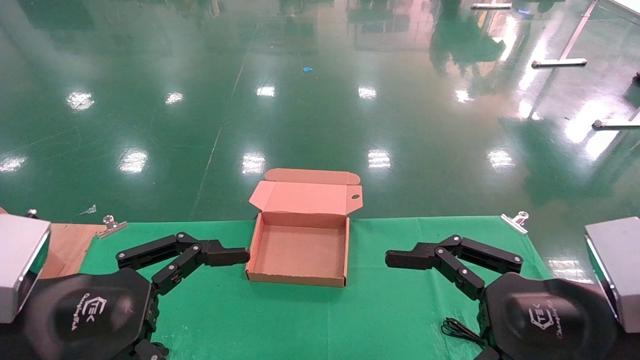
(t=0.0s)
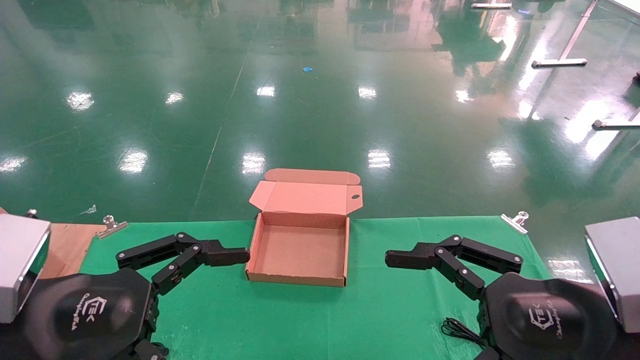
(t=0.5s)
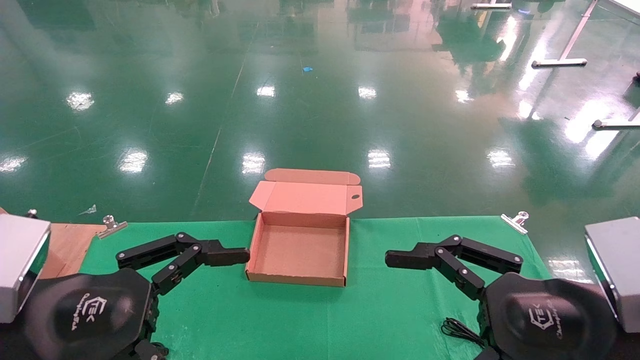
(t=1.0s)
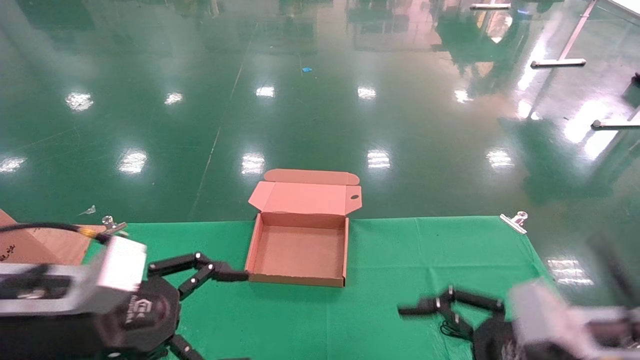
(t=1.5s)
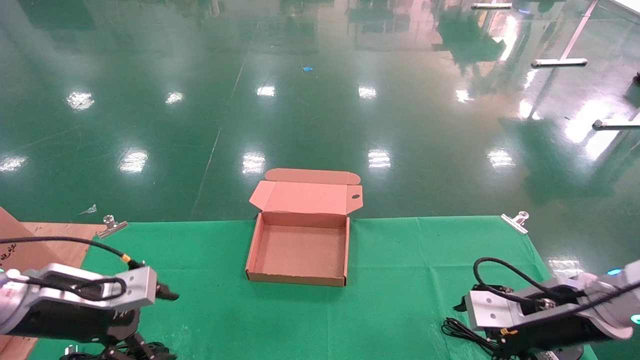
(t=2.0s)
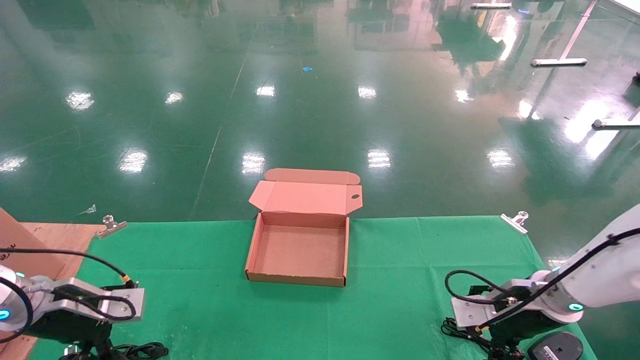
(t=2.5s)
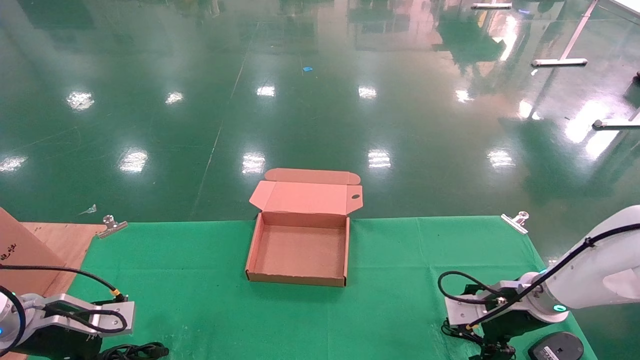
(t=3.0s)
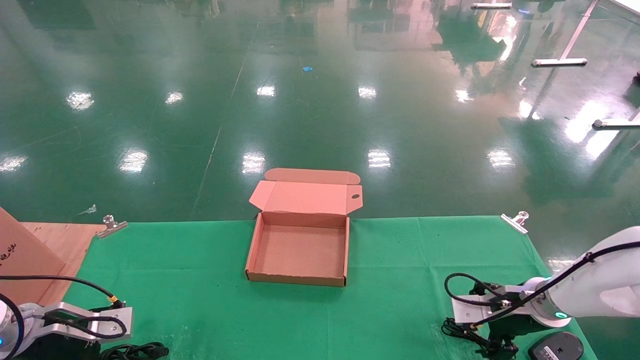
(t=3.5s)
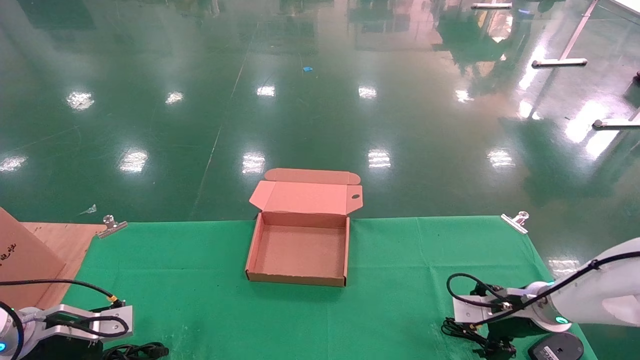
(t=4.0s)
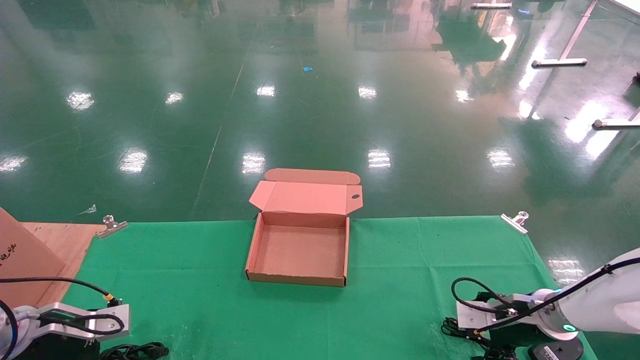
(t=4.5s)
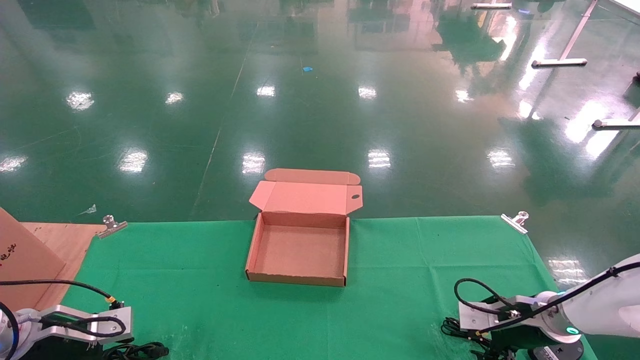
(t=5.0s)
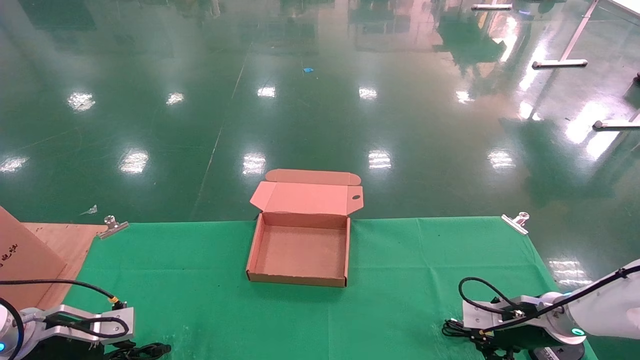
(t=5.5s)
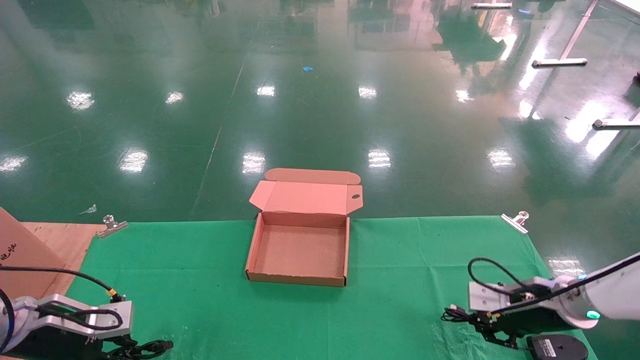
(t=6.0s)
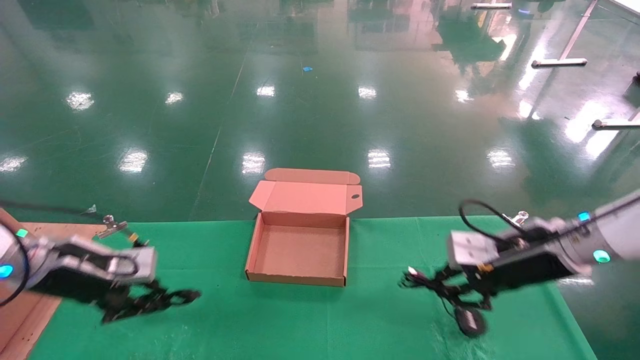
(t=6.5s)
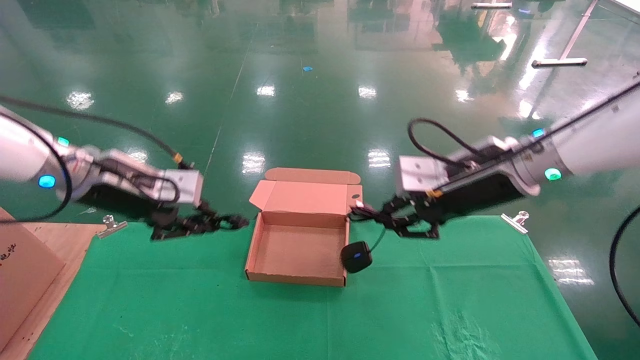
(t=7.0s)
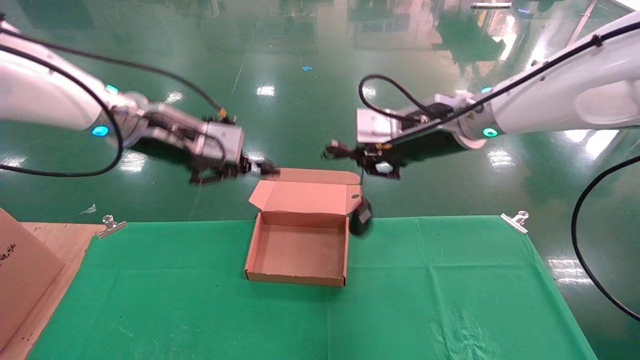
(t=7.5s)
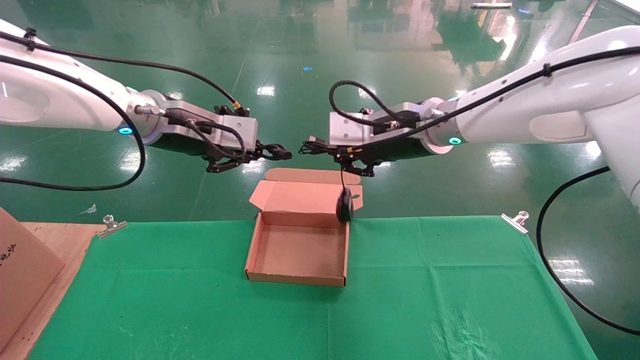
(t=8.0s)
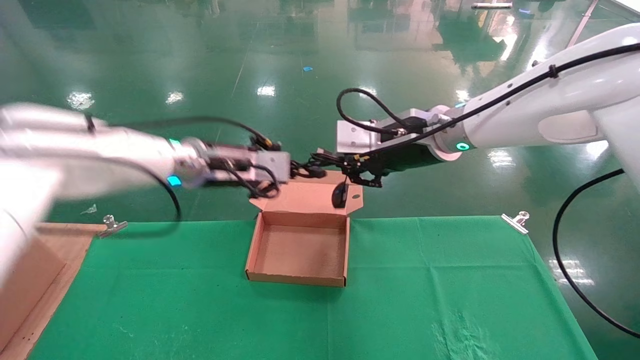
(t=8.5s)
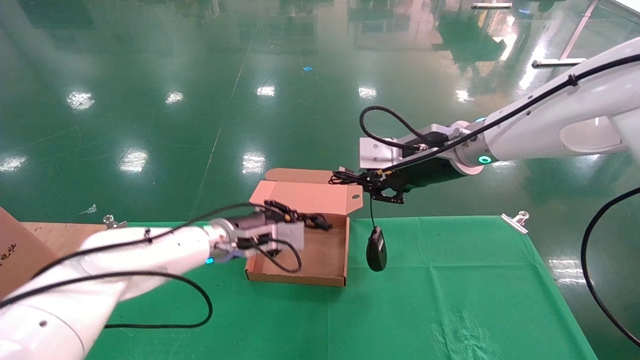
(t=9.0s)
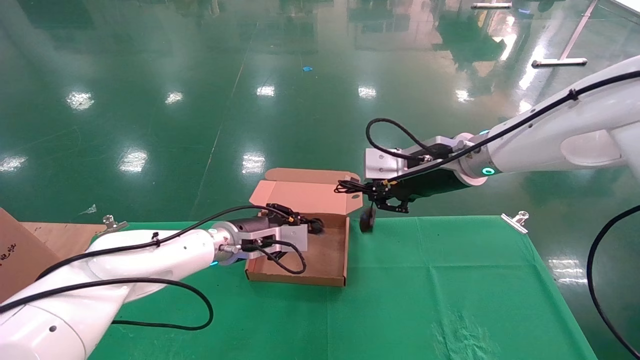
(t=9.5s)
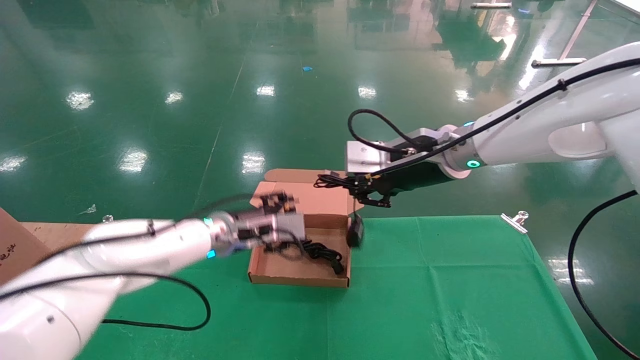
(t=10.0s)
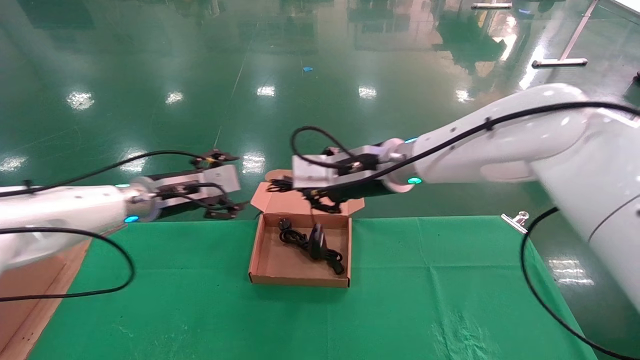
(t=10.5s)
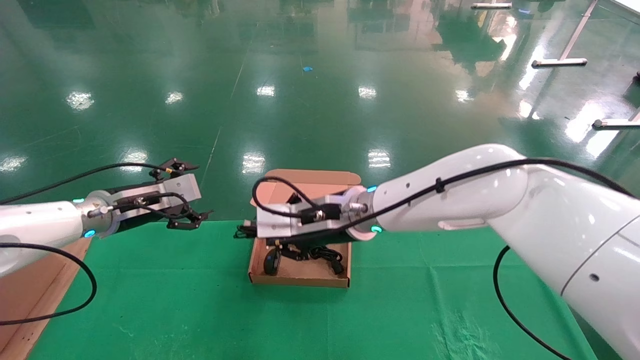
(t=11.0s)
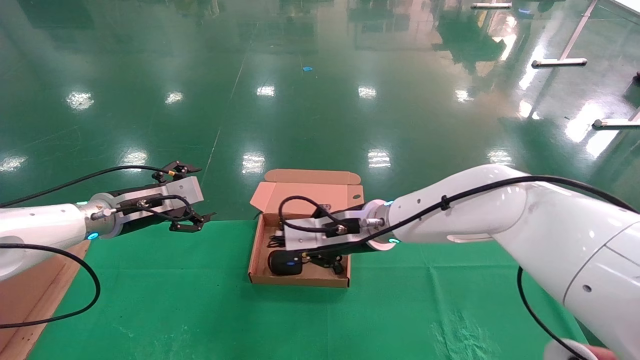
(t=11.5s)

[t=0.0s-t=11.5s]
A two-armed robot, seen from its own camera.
Step, t=1.5s to t=5.5s: Grab and lift both the mouse and power cord from the accessory packaging area at the same time.
t=0.0s to t=2.0s: The left gripper shifts roughly 20 cm forward, to the left and downward. The right gripper travels forward and downward by roughly 15 cm.
t=2.0s to t=4.0s: The left gripper travels downward and to the left by some 10 cm. Meanwhile the right gripper travels forward and downward by some 10 cm.
t=4.0s to t=6.0s: The right gripper closes its fingers. Meanwhile the left gripper closes up.
t=6.0s to t=7.5s: The right gripper travels upward and to the left by roughly 30 cm; the left gripper is displaced upward and to the right by approximately 30 cm.
t=7.5s to t=9.5s: The left gripper goes some 20 cm downward and to the right.
t=9.5s to t=11.5s: The left gripper goes approximately 20 cm to the left, and opens its fingers. The right gripper heads to the left and downward, covering some 15 cm.

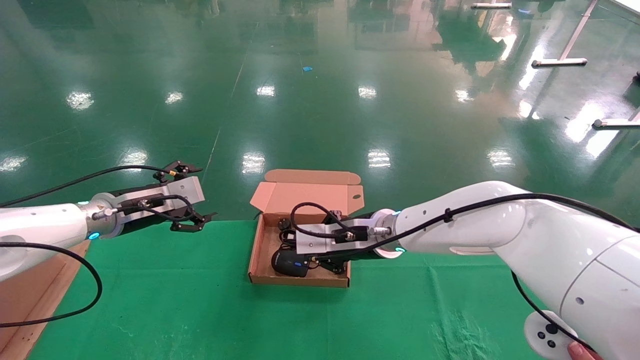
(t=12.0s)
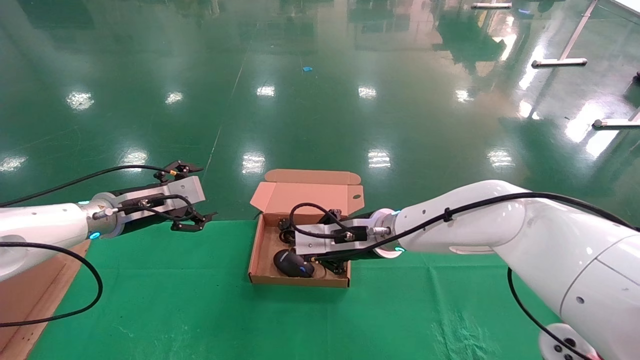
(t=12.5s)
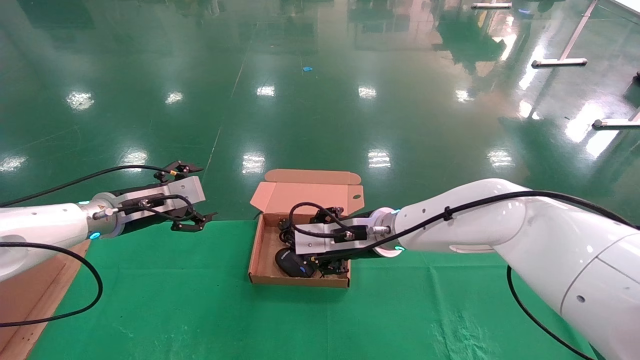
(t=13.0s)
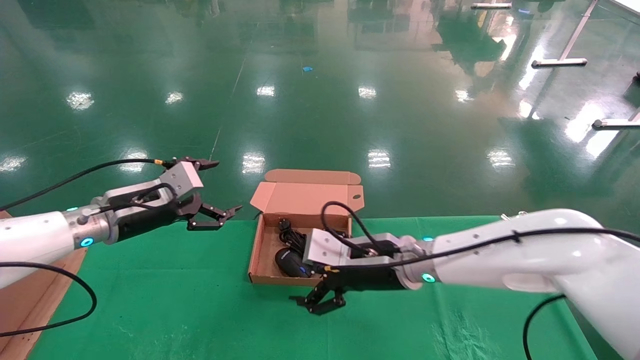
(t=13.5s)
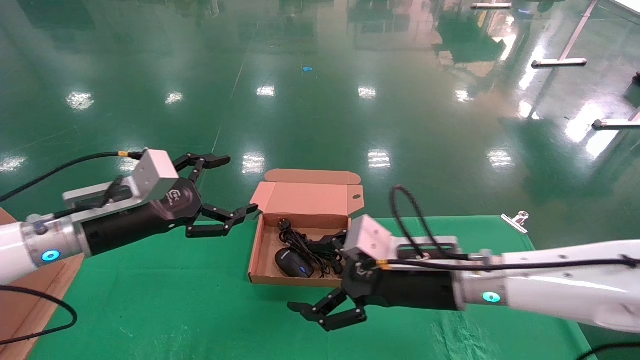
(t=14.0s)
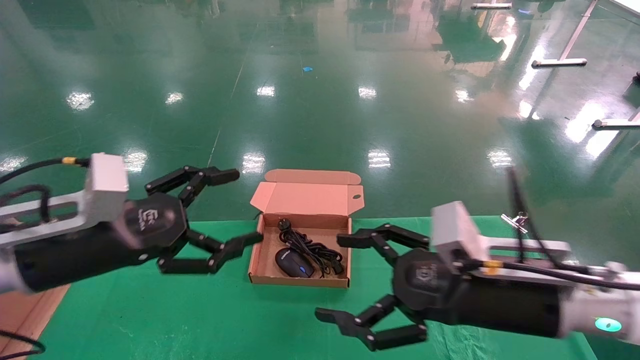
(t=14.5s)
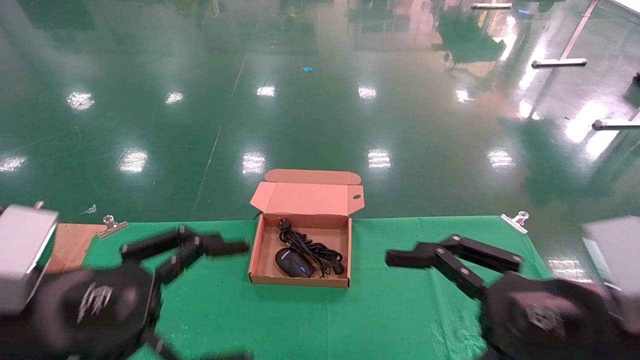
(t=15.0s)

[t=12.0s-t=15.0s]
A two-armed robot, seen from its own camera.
t=12.0s to t=13.5s: The right gripper ends up some 5 cm from where it was, and opens up.
t=13.5s to t=15.0s: The right gripper goes roughly 25 cm backward and to the right. The left gripper travels backward by about 20 cm.
